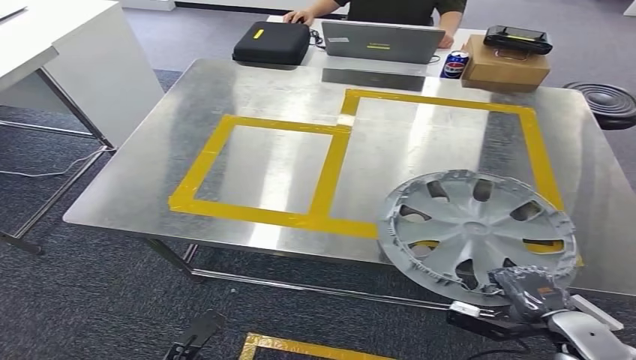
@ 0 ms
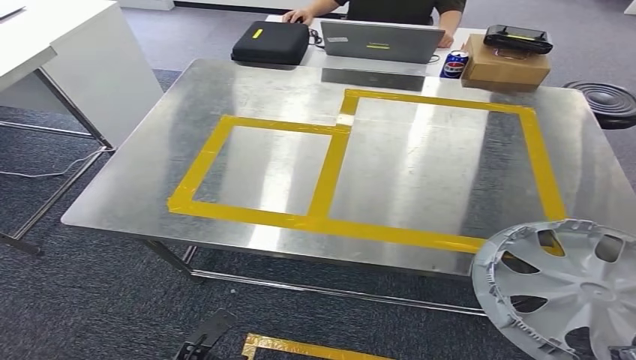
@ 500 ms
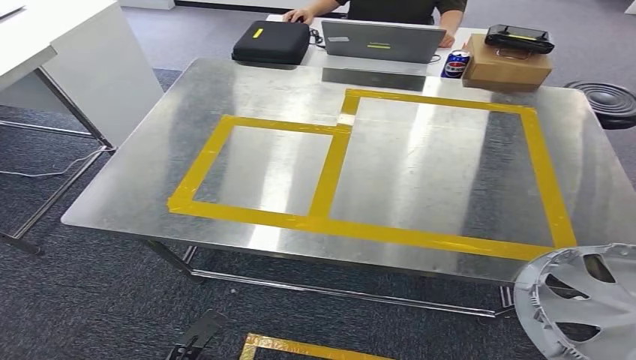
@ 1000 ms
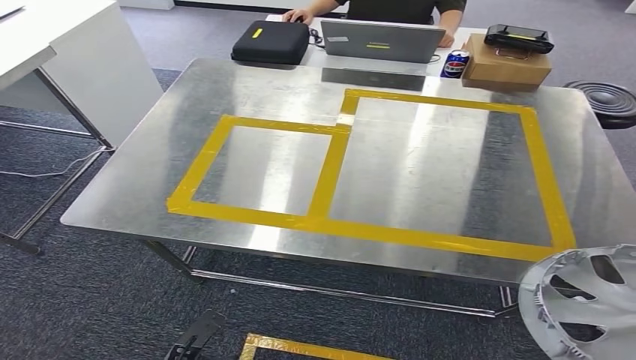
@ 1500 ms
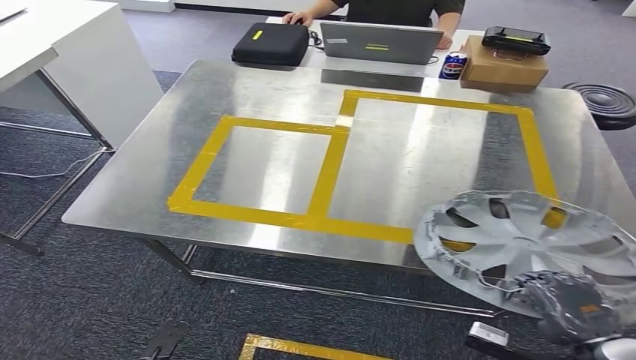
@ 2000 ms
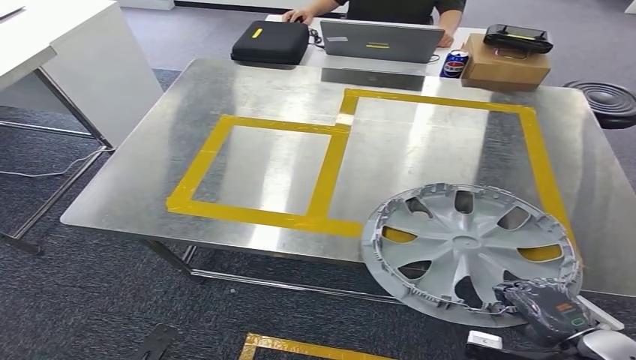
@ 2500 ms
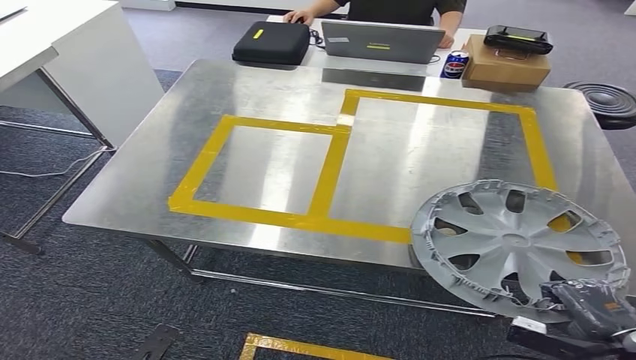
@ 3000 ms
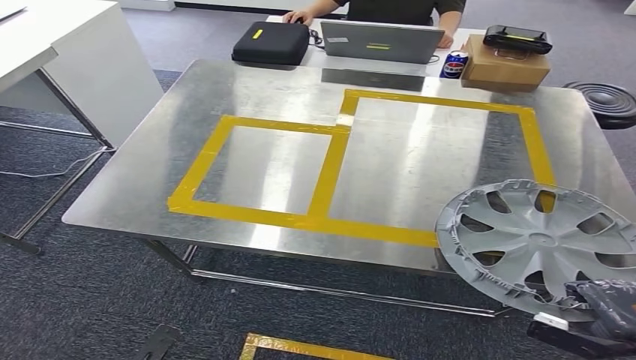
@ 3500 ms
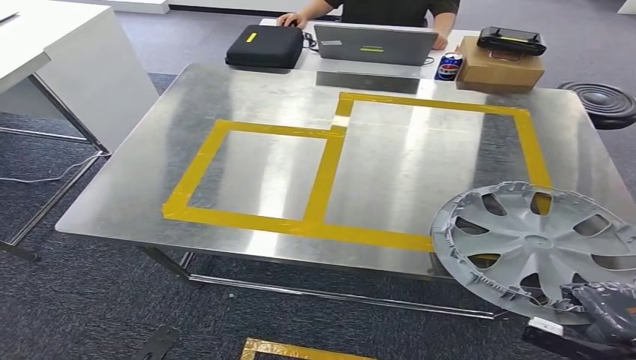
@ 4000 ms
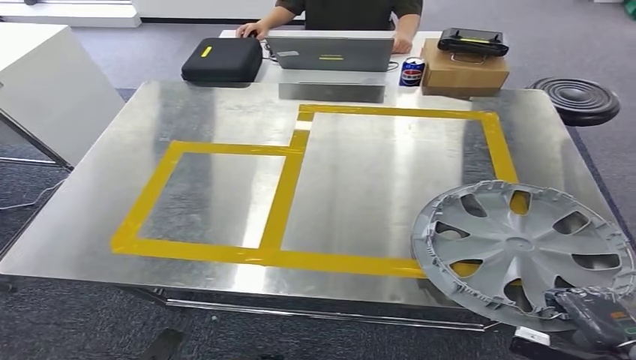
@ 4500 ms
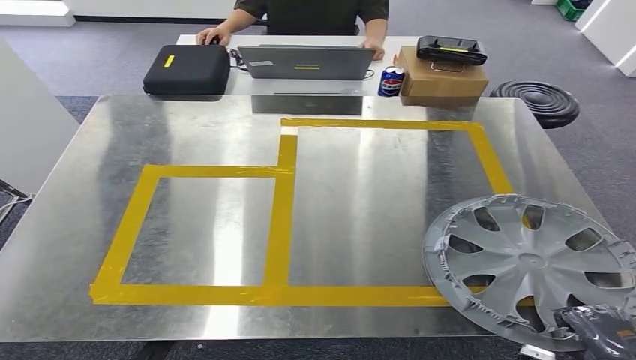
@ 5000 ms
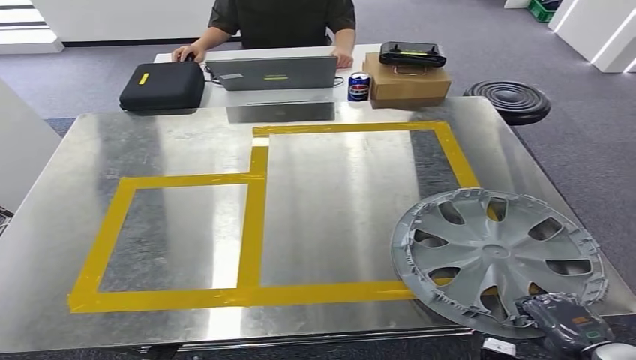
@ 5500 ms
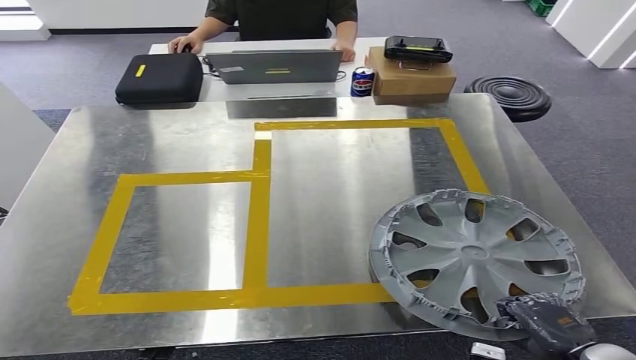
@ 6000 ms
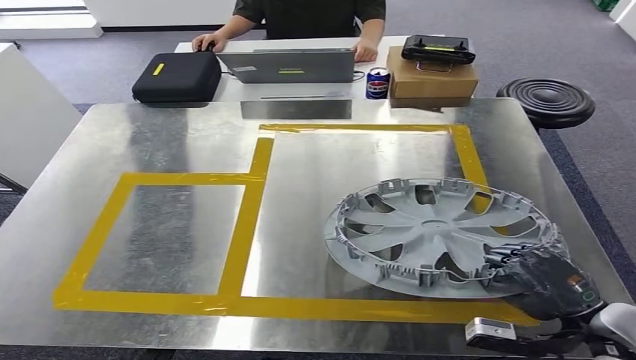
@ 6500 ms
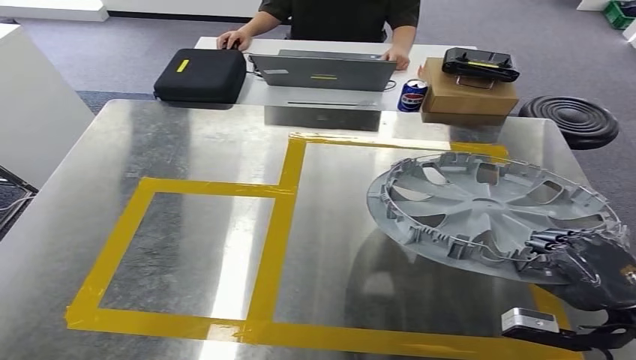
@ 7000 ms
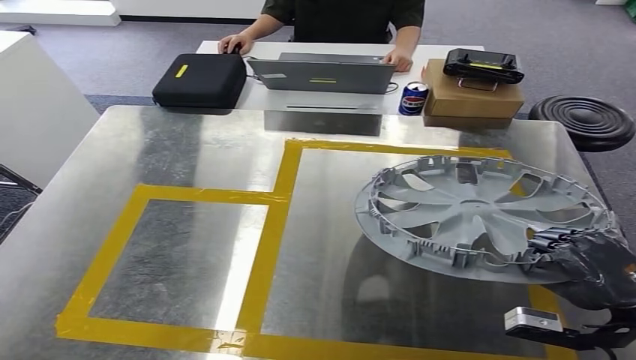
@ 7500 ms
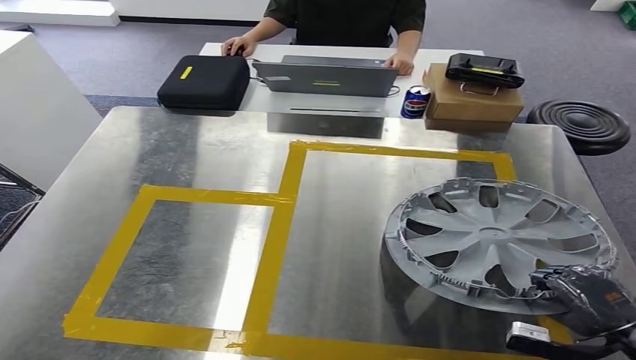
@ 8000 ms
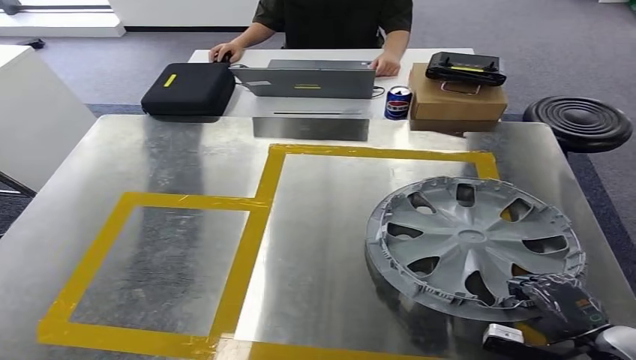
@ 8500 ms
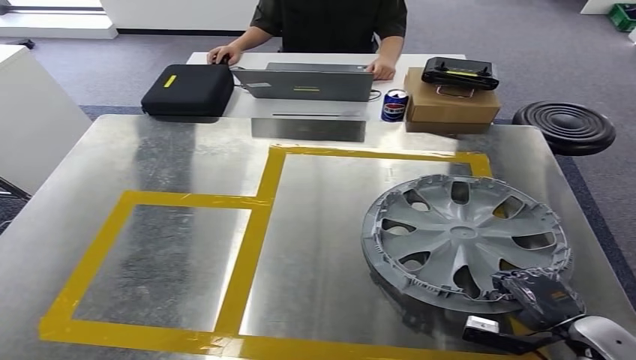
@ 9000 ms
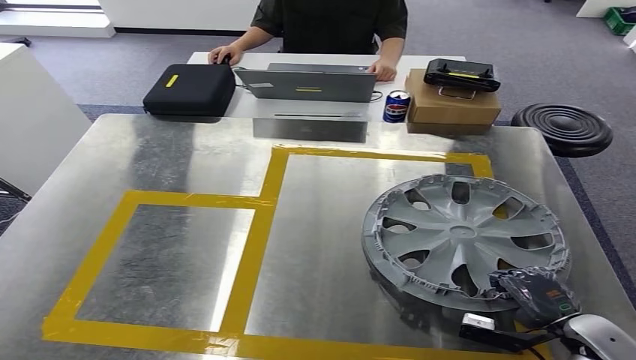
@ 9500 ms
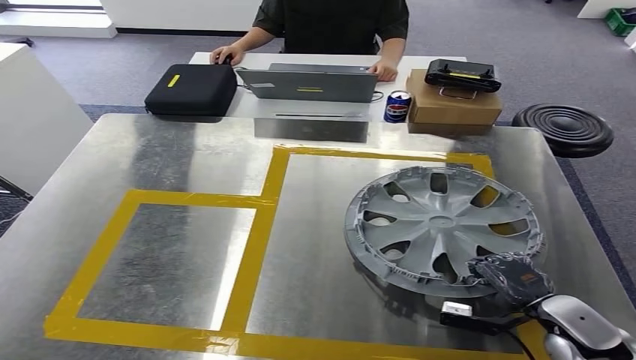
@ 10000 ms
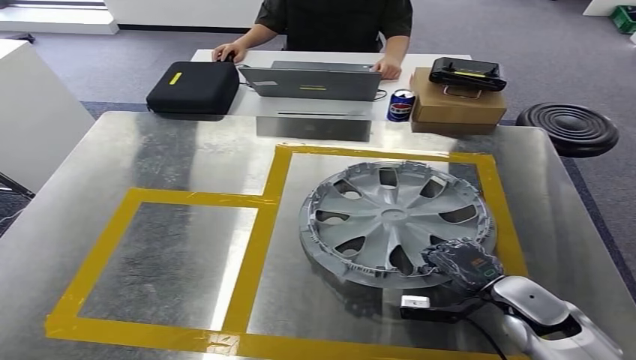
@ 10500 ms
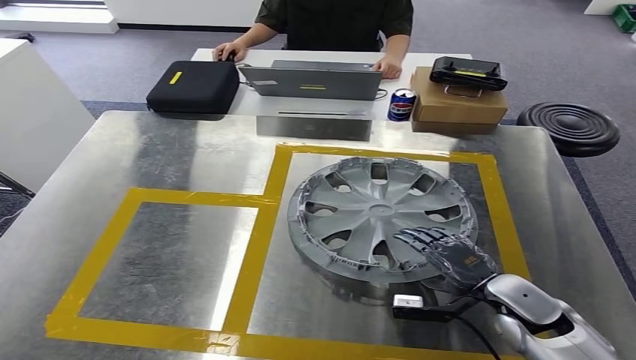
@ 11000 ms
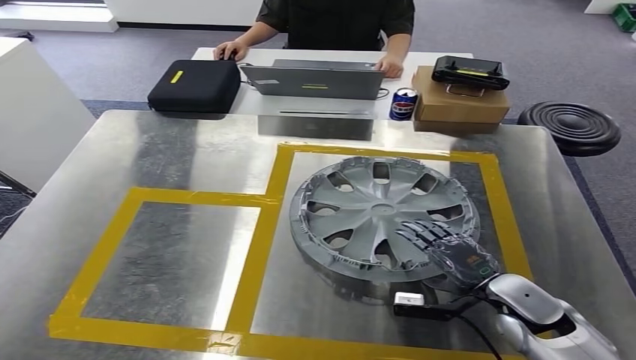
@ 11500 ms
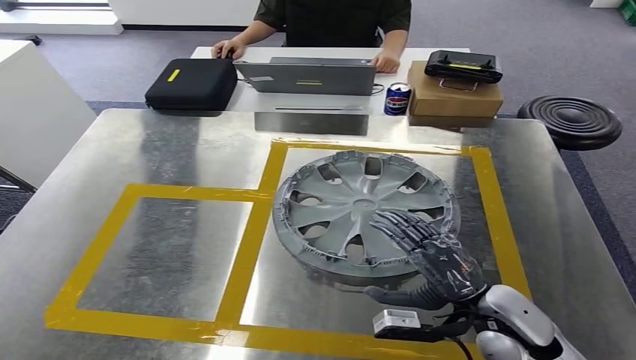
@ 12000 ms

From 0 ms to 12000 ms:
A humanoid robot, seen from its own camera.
From 0 ms to 2000 ms: The right hand travels upward by about 10 cm, and reaches roughly 20 cm backward, then returns.
From 2000 ms to 4000 ms: The right hand goes some 10 cm to the right.

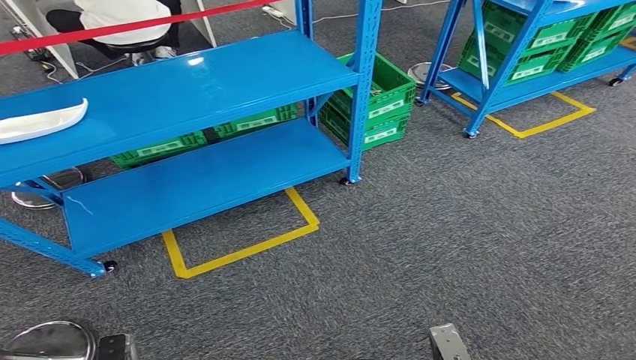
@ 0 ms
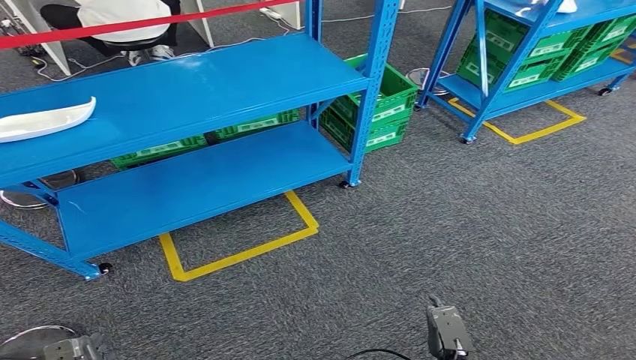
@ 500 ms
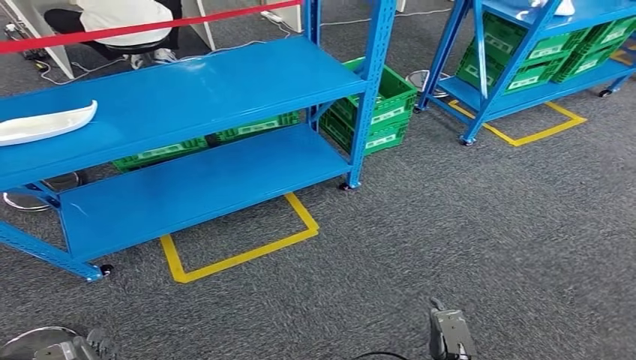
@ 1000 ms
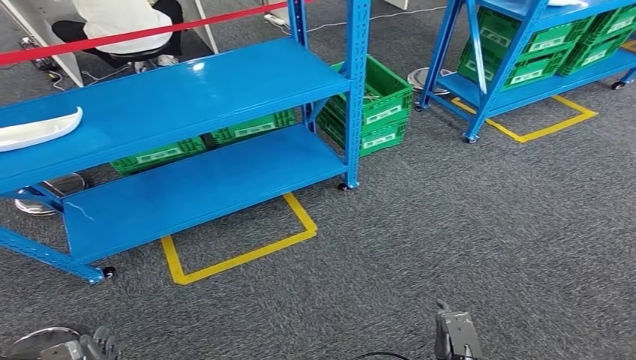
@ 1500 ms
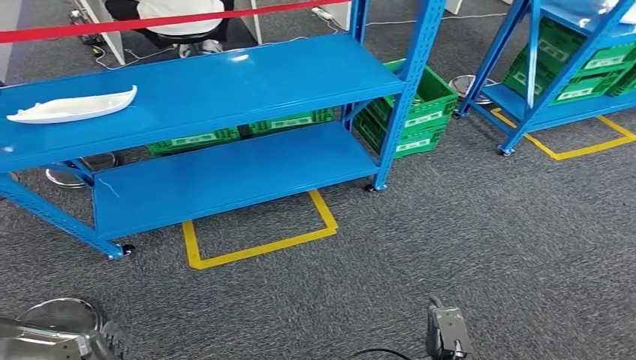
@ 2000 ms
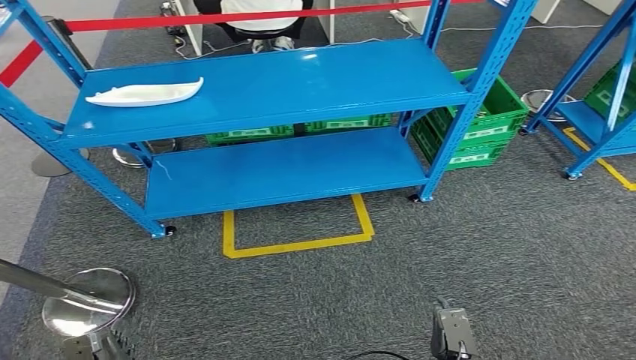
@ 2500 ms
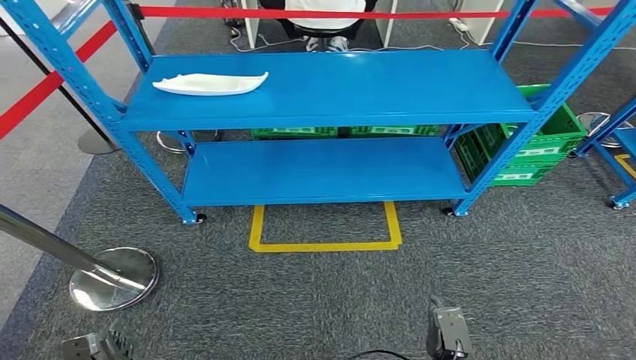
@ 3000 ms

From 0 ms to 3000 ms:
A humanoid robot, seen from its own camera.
Step, from 0 ms to 3000 ms: Return to the initial position at the workbench.
